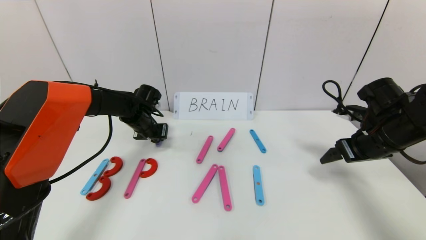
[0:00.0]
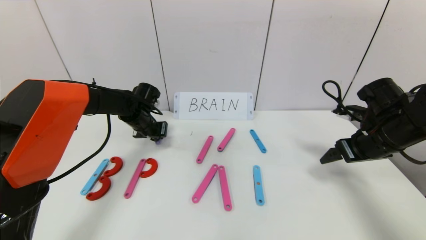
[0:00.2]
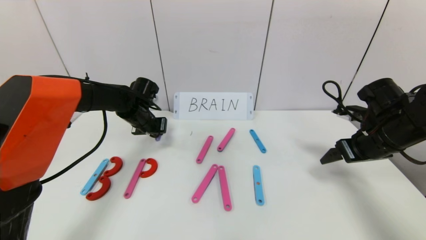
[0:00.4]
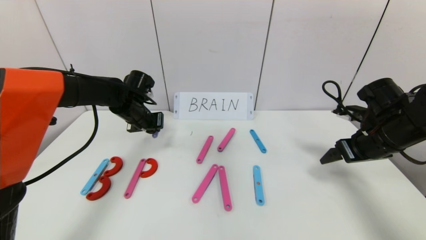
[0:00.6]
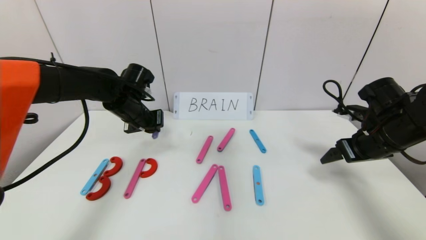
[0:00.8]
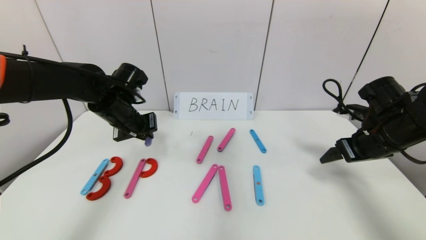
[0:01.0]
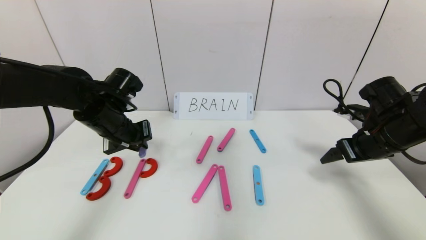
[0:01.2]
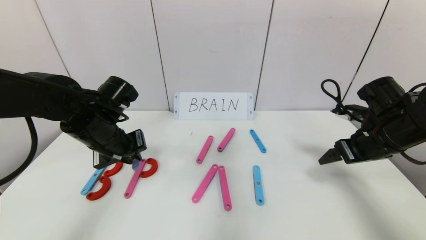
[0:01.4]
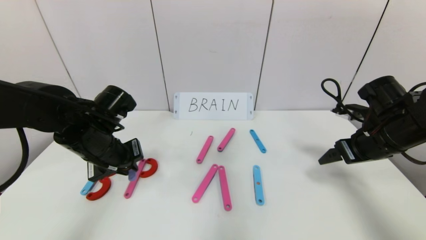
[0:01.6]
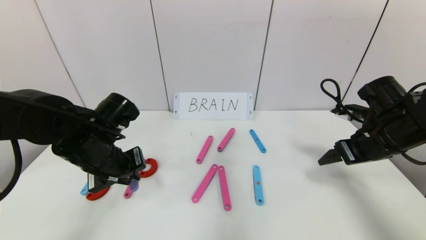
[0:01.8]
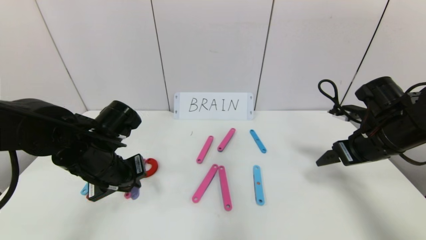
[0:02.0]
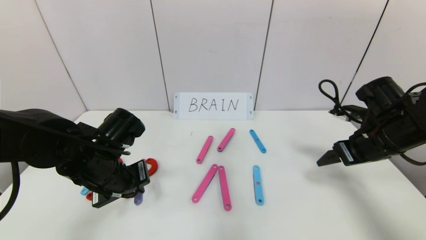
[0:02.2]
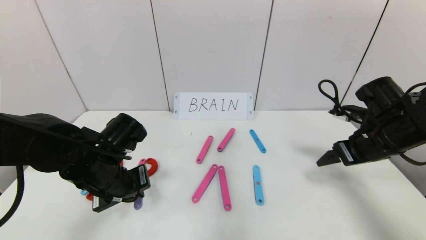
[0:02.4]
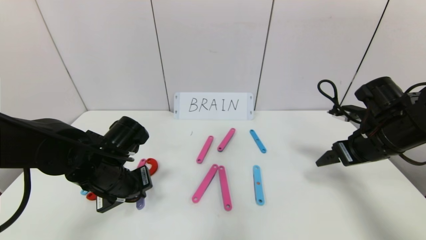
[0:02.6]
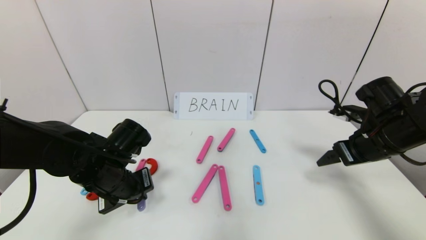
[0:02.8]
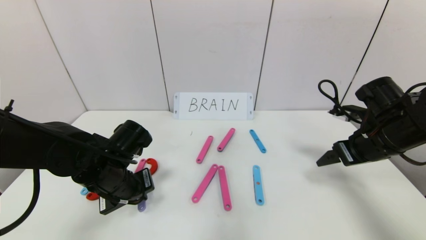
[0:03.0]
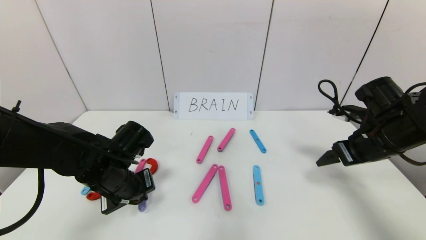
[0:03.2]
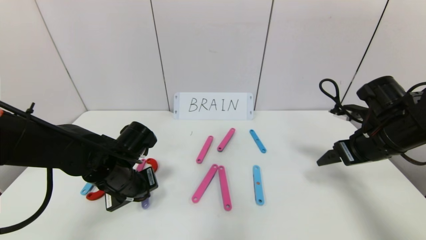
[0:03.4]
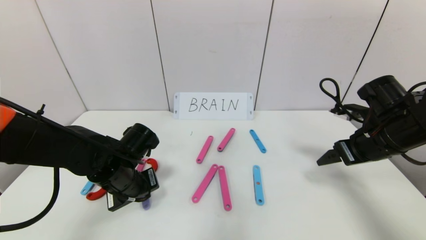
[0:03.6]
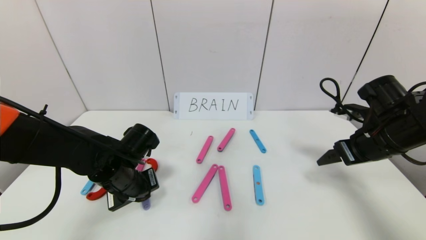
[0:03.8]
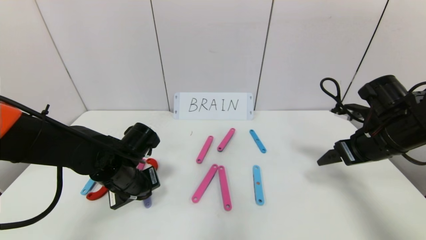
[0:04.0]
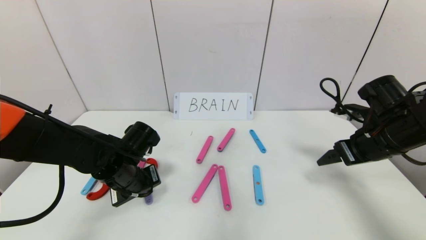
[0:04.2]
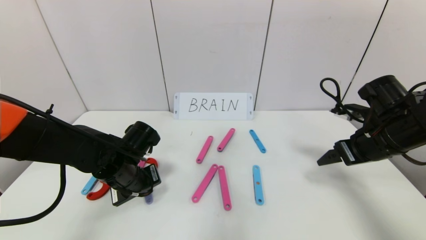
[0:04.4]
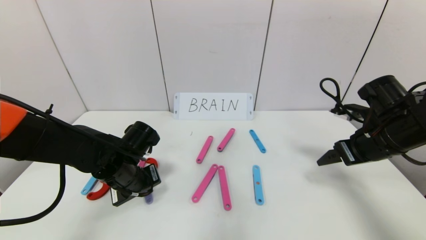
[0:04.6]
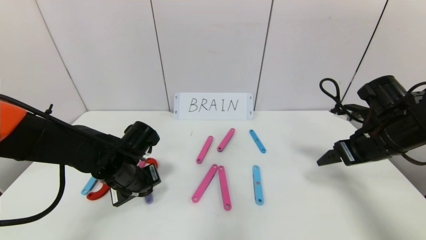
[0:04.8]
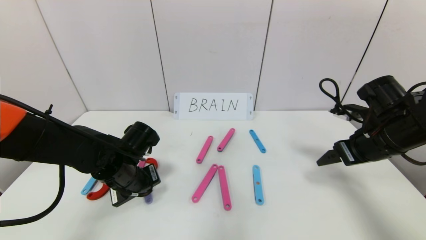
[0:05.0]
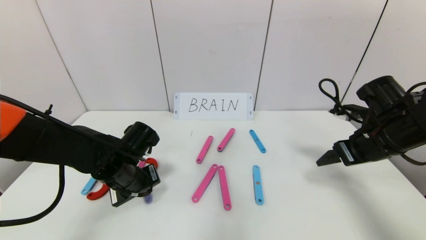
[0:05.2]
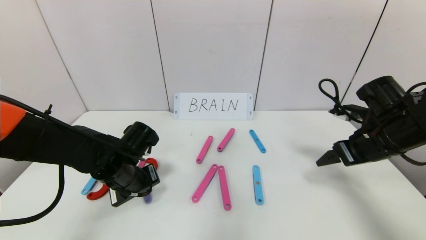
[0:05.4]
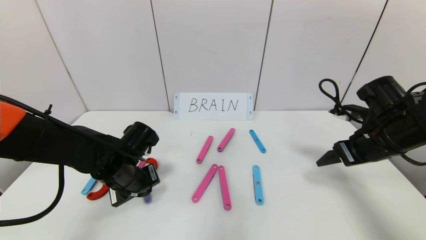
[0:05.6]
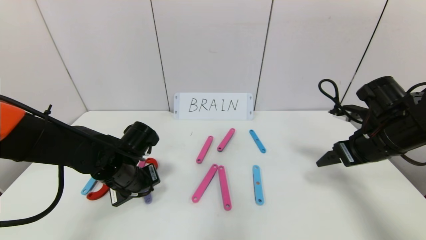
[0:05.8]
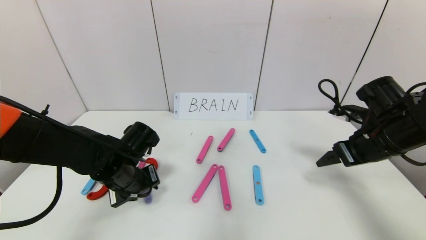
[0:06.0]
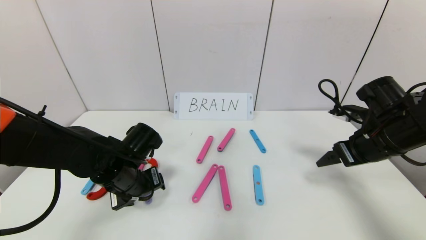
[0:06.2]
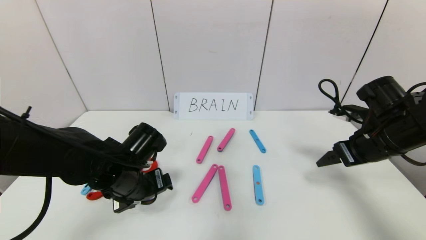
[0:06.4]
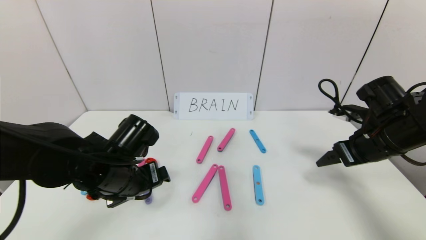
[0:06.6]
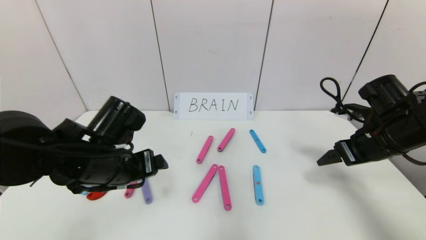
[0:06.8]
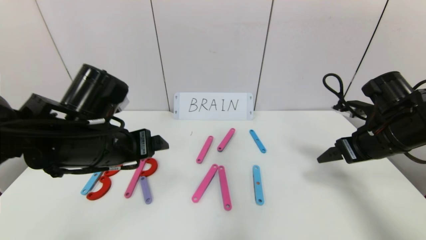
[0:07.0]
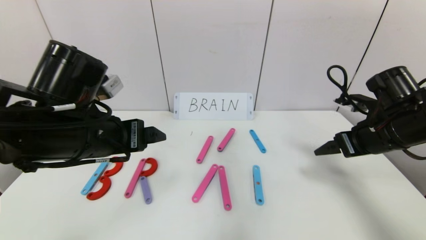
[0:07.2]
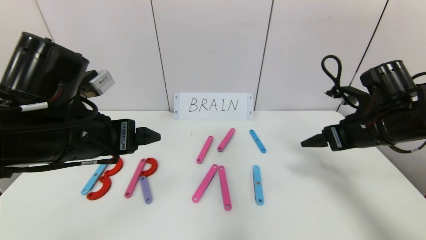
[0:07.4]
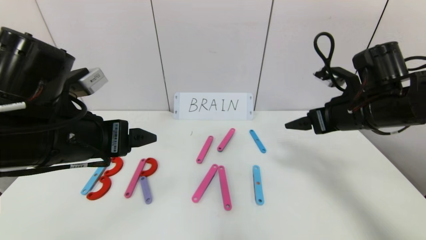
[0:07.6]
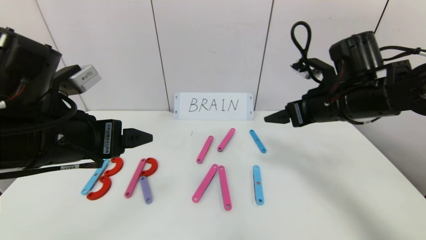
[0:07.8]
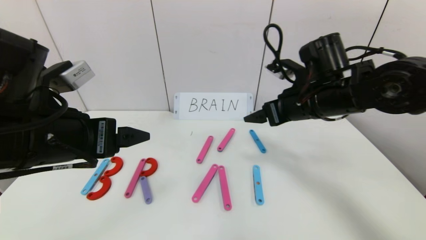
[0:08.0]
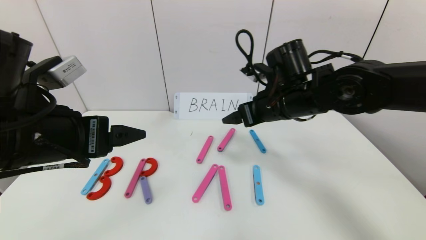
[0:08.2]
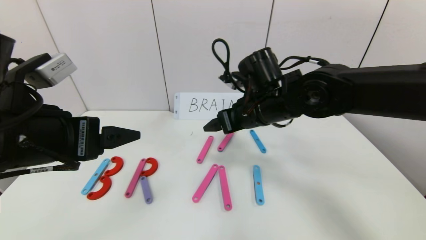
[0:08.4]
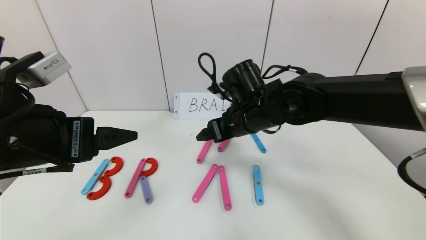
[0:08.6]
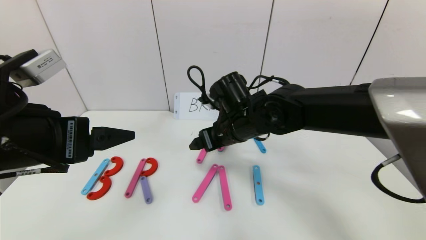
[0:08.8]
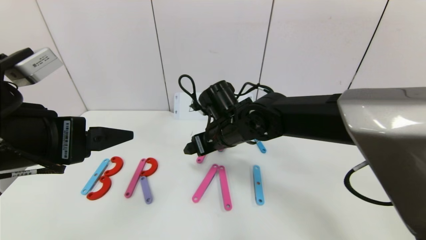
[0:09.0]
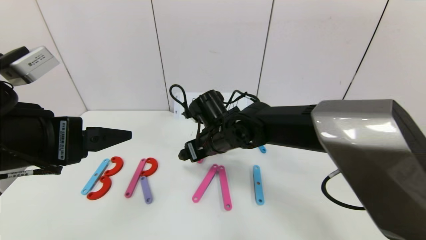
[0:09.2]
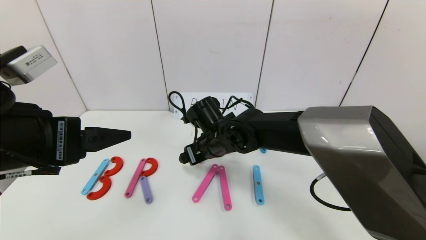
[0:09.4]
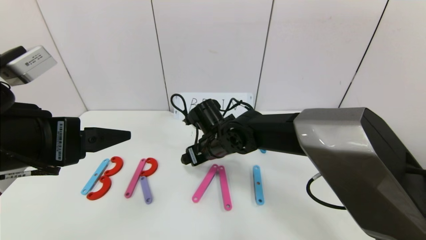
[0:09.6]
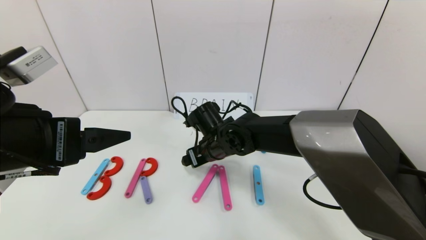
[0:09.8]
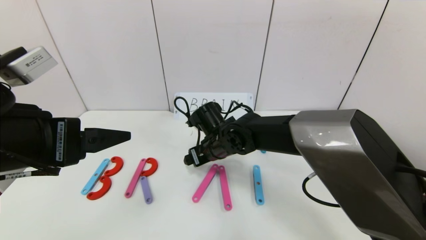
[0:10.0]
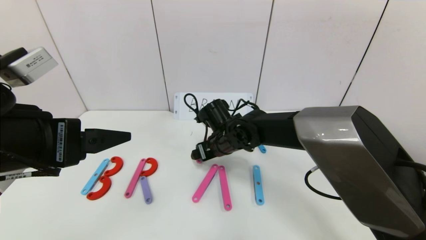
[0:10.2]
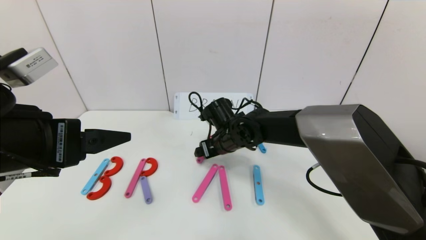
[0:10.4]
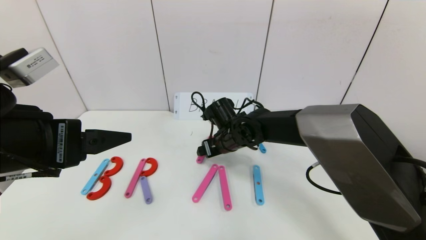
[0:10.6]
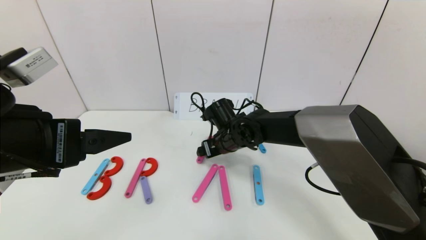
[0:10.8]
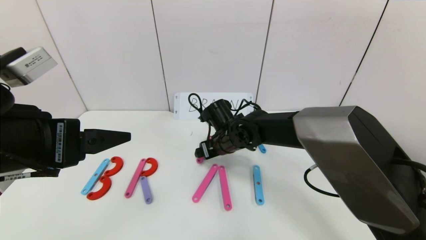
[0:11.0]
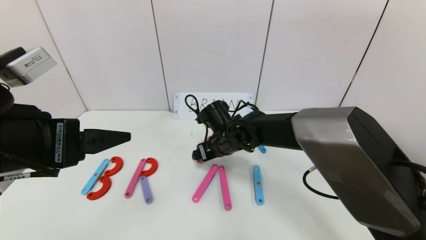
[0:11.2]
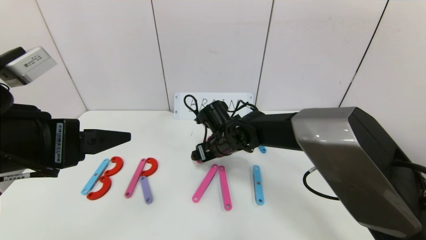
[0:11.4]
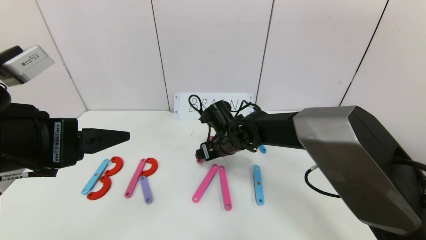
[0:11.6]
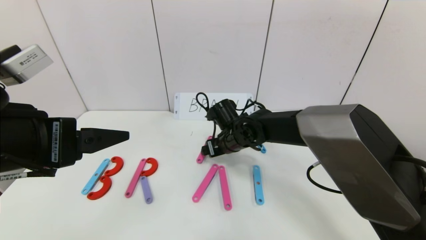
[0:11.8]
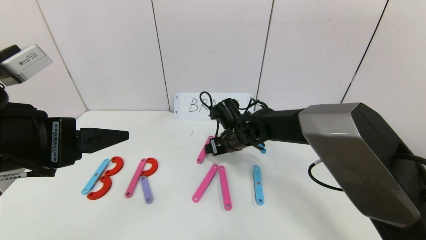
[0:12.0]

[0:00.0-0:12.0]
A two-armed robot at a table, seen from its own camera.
Task of the whole recording: rearrange the word baai as brain.
Step, 0:00.0 to 0:06.0: Place the character R between first character B and third character A.
0:00.0 to 0:01.6: The left gripper shifts about 15 cm backward.
0:01.6 to 0:03.0: The left gripper goes roughly 5 cm downward.
0:03.0 to 0:04.4: The grippers stay close to where they were, moving slightly.
0:04.4 to 0:06.0: The left gripper opens up.
0:06.0 to 0:07.6: The right gripper goes approximately 10 cm to the left and upward; the left gripper is displaced upward and backward by approximately 20 cm, and opens up.
0:07.6 to 0:09.0: The left gripper moves roughly 5 cm; the right gripper heads to the left, covering some 25 cm.
0:09.0 to 0:10.4: The right gripper heads downward, covering roughly 5 cm.
0:10.4 to 0:12.0: There are only small adjustments of the grippers.

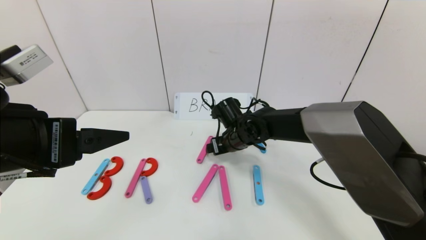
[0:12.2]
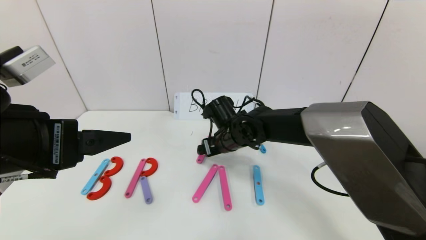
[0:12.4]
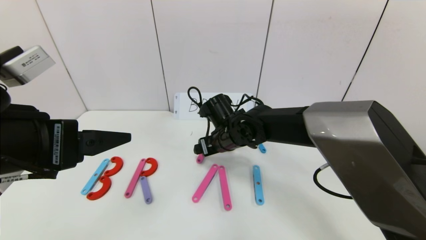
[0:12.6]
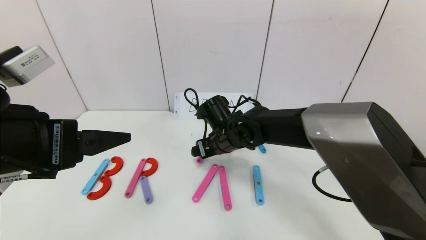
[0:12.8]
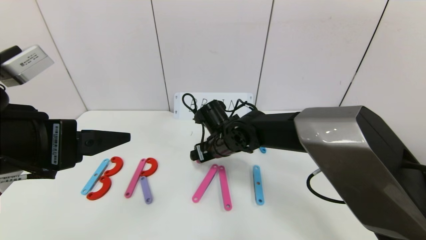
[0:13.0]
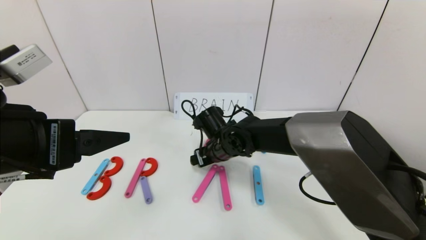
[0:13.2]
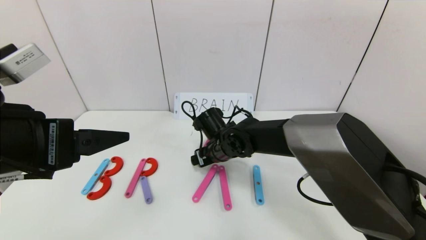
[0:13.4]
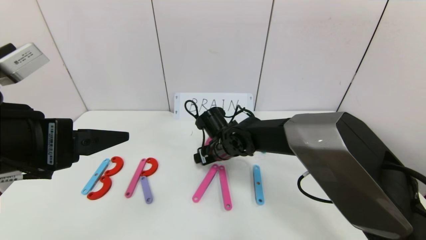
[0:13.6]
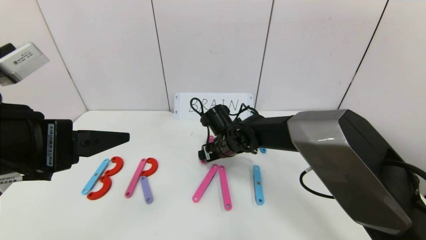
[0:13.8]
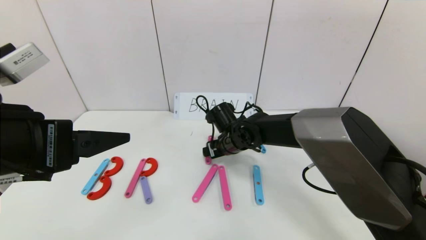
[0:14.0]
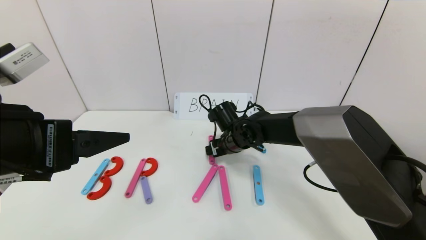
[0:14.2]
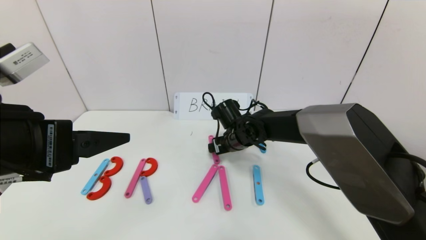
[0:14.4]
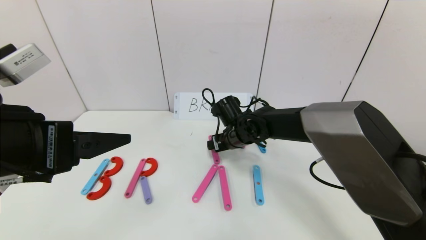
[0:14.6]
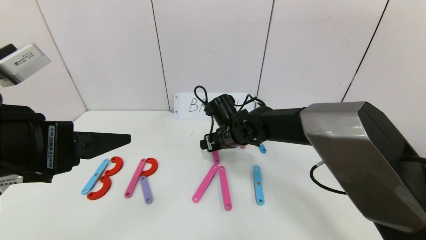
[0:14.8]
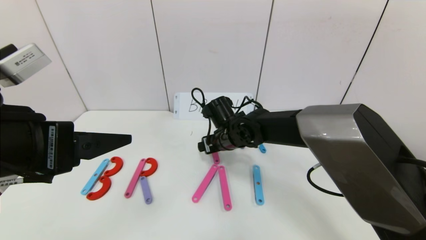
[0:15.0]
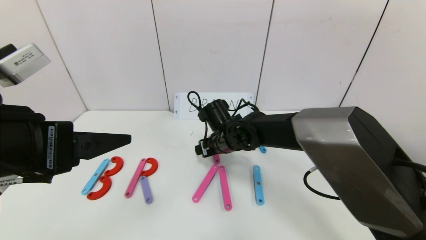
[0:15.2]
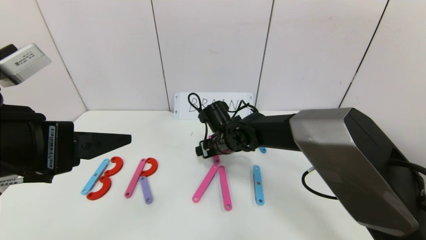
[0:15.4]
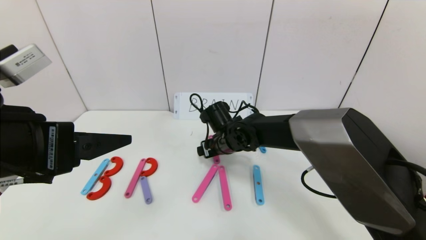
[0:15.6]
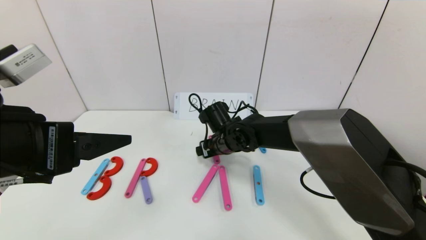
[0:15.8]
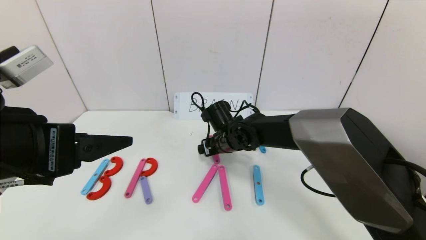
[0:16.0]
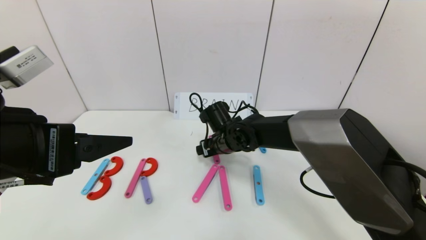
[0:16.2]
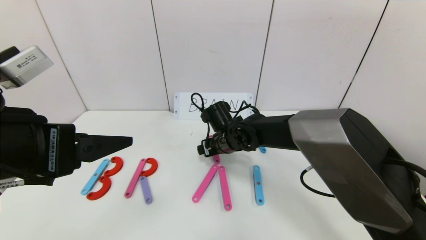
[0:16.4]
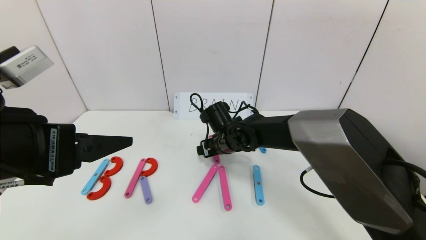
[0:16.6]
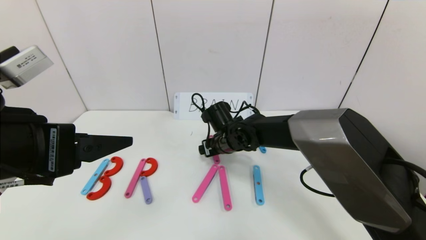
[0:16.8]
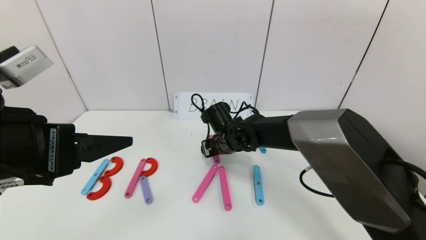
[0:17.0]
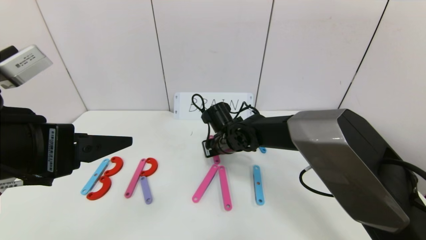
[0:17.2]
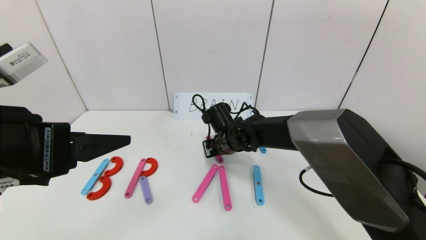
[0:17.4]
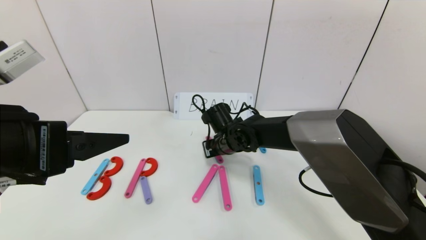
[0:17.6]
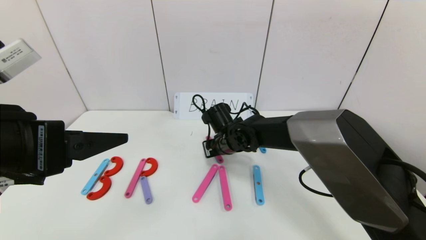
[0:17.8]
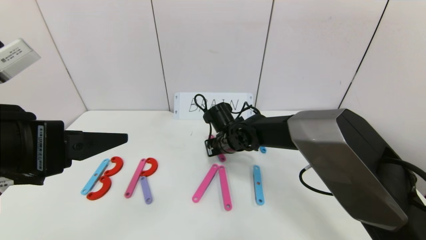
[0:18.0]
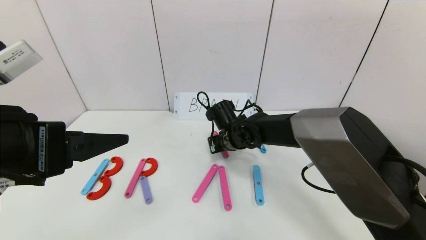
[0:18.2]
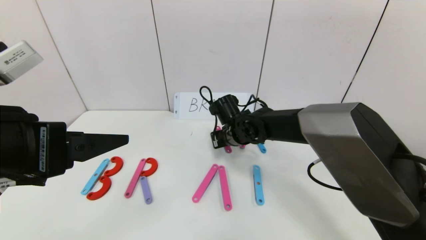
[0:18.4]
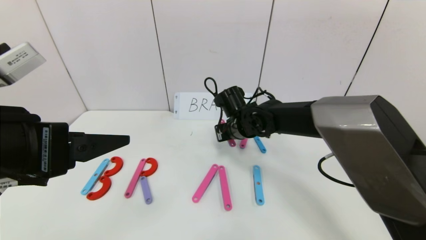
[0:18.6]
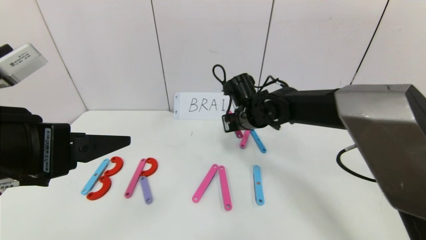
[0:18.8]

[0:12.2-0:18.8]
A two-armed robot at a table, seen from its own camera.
Task of the whole recording: rearrange the word baai as brain.
0:12.2 to 0:15.4: The grippers stay close to where they were, moving slightly.
0:15.4 to 0:17.2: The right gripper closes its fingers.
0:17.2 to 0:18.8: The right gripper moves upward and to the right, approximately 10 cm.
